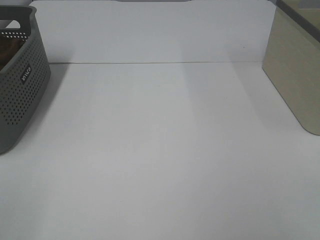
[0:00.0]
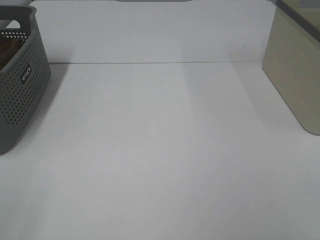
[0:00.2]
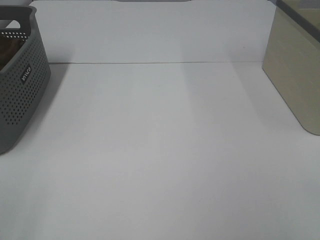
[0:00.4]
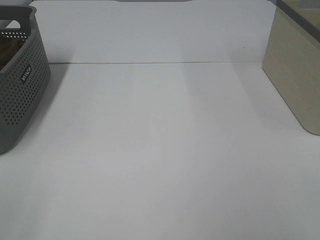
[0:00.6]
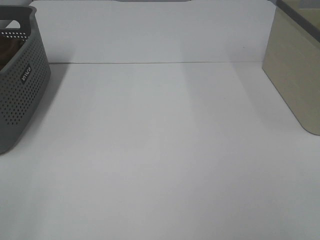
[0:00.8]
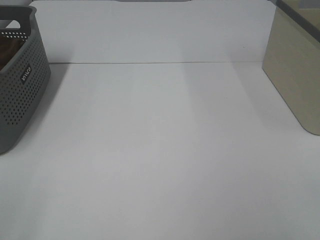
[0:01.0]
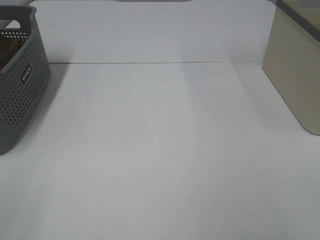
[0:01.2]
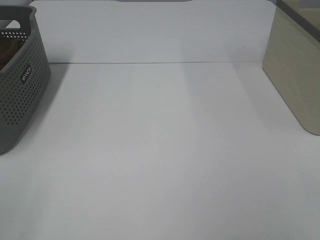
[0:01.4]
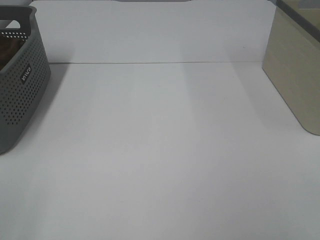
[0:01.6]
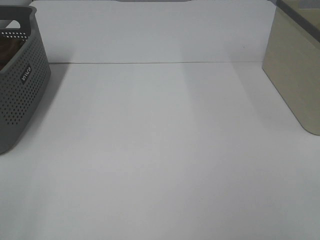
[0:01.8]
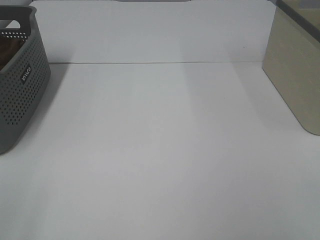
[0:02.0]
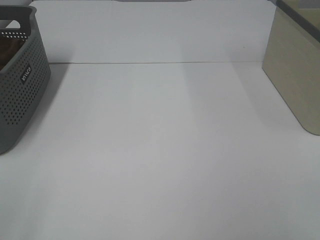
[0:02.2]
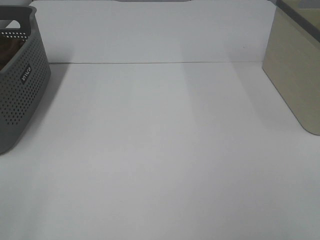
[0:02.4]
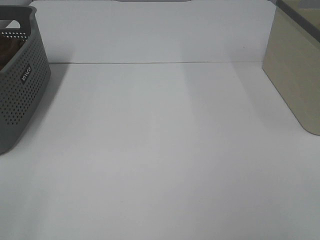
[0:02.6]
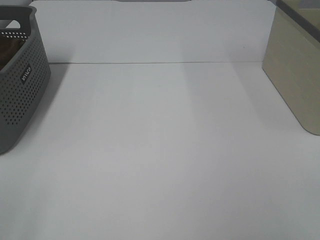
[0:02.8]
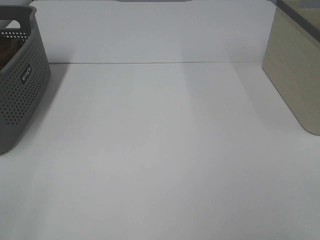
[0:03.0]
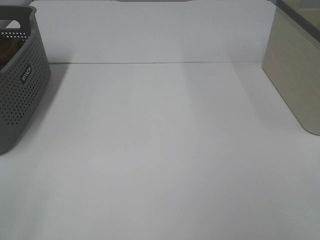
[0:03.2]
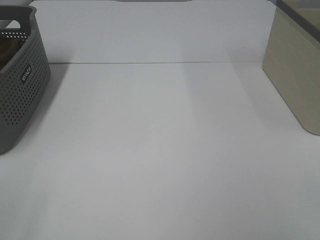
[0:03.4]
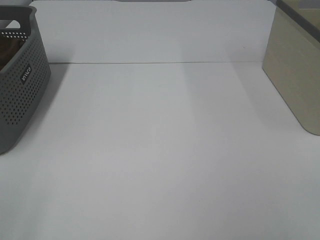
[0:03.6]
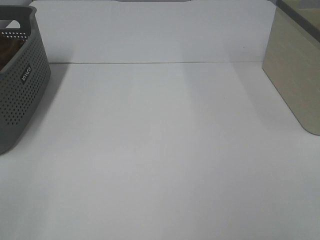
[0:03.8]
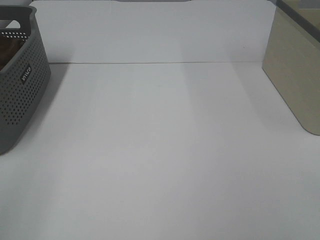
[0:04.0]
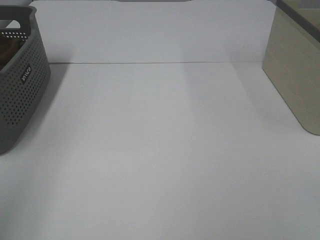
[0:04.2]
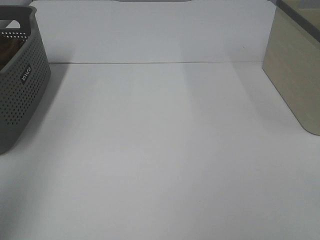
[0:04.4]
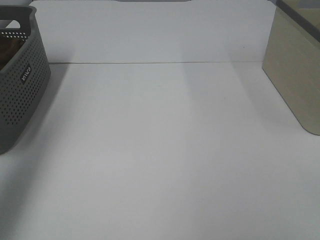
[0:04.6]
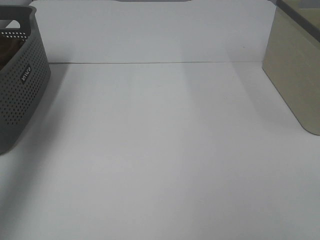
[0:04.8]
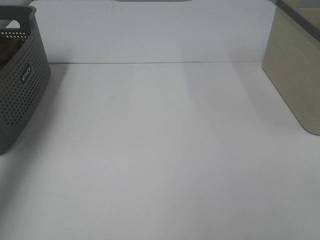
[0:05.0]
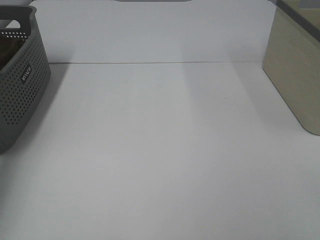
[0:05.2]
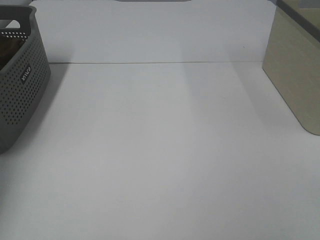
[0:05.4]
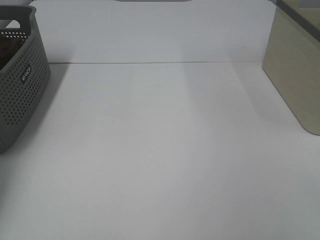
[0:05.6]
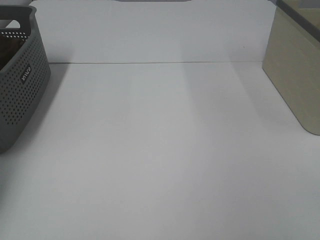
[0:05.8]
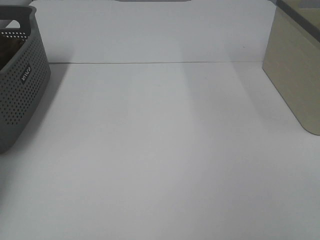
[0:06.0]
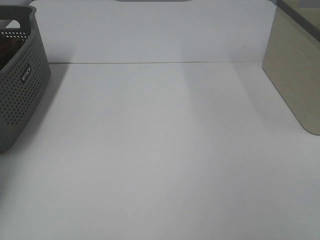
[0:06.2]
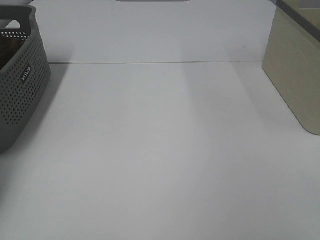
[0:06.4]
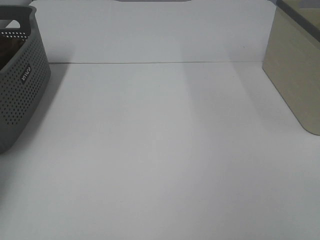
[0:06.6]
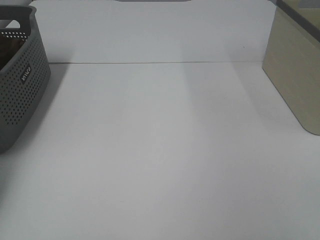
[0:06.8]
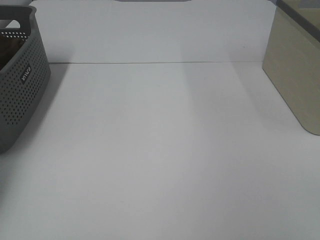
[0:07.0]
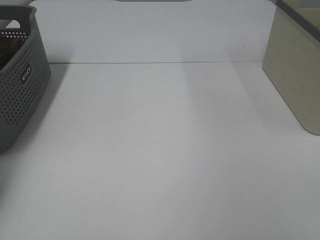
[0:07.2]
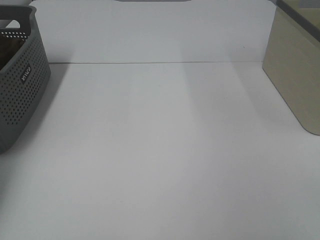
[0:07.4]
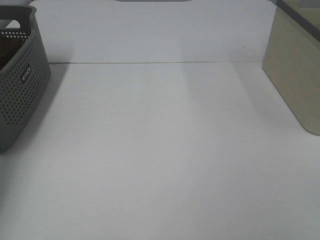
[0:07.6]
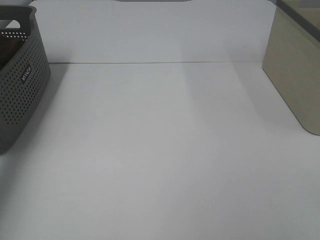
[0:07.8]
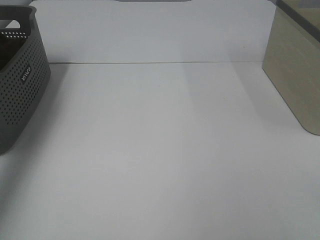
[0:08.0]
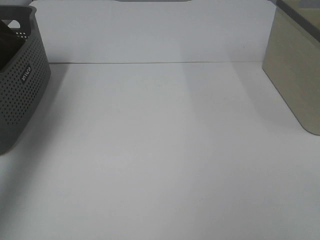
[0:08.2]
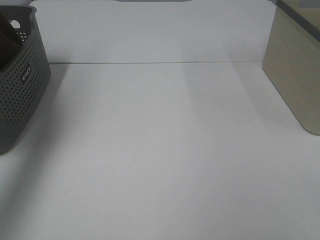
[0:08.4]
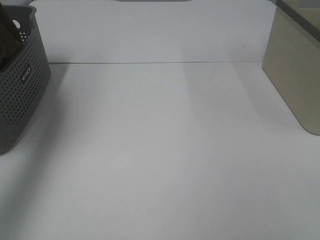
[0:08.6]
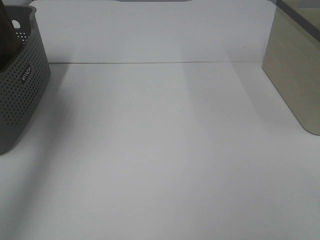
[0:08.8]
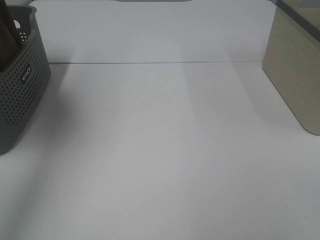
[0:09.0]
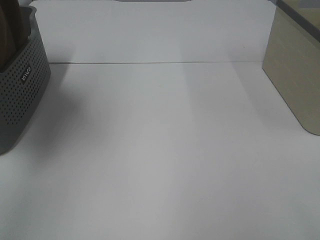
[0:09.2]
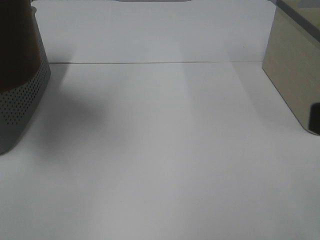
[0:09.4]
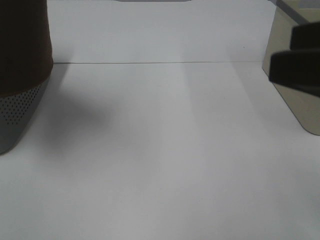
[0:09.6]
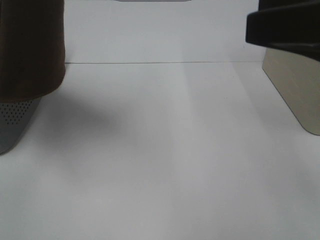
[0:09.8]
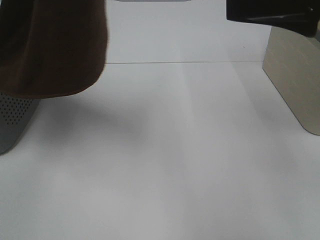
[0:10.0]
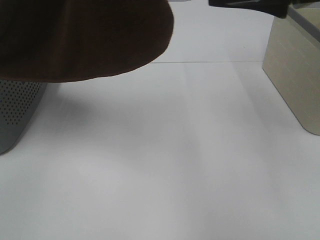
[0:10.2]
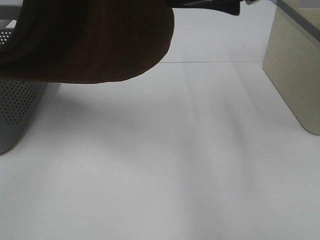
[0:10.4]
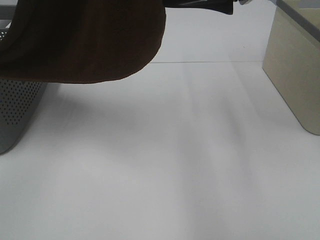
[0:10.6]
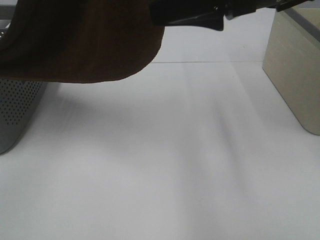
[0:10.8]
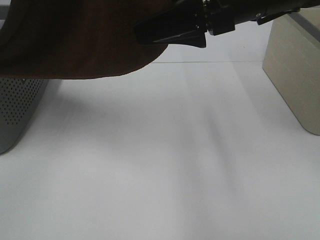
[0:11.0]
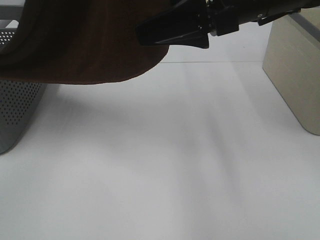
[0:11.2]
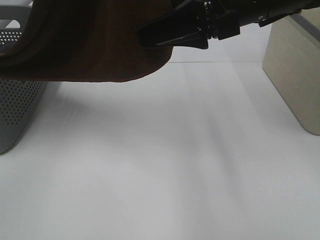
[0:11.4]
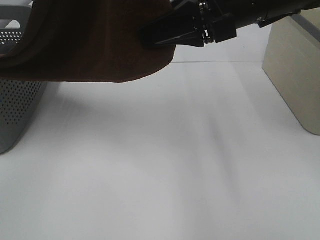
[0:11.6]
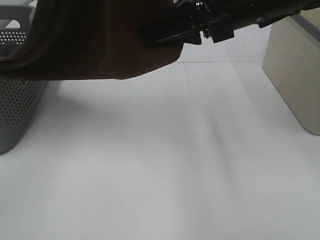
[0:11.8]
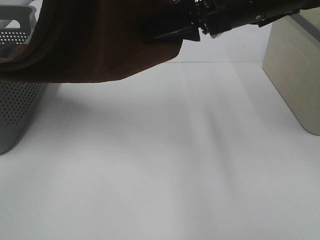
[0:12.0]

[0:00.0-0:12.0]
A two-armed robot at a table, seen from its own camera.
Task of the whole recording: Remove the towel and place it.
Step, 0:08.2 to 0:11.2: Right hand: grab a corner of the brown towel and straighten it.
0:00.0 to 0:03.0: Both grippers stay about where they are.
0:03.0 to 0:04.4: The left gripper is displaced forward and upward by about 20 cm.
0:04.4 to 0:06.0: The left gripper goes approximately 35 cm forward and downward.
0:07.6 to 0:09.0: The left gripper travels upward, backward and to the right by about 30 cm.
0:09.0 to 0:10.4: The right gripper shifts about 30 cm forward and to the left. The left gripper shifts some 15 cm to the right.
0:10.4 to 0:12.0: The right gripper ends up roughly 5 cm from where it was, and closes its fingers.

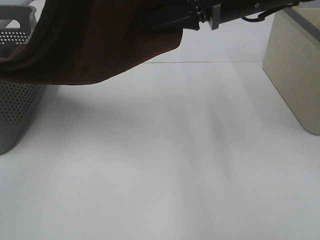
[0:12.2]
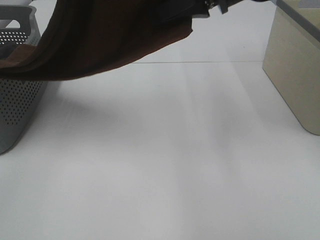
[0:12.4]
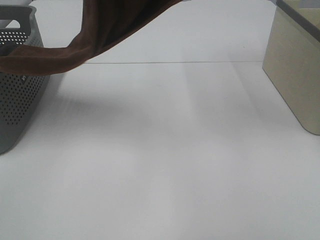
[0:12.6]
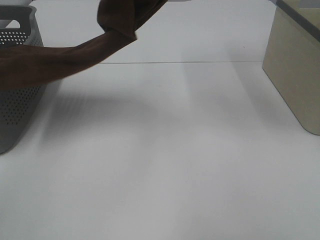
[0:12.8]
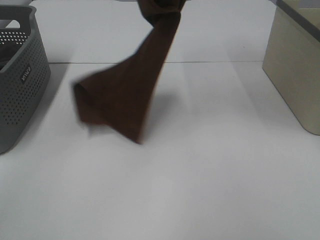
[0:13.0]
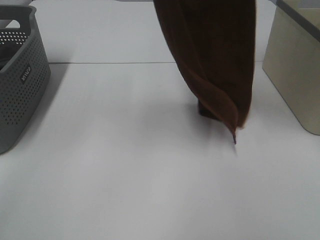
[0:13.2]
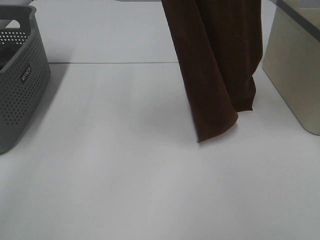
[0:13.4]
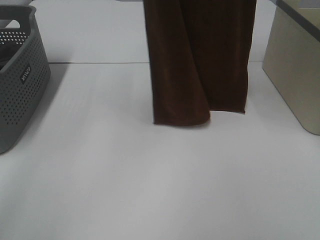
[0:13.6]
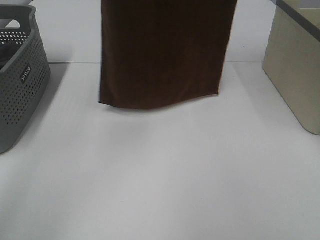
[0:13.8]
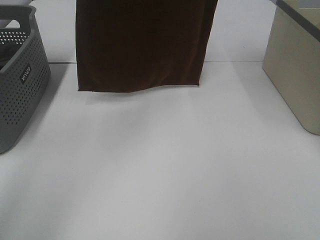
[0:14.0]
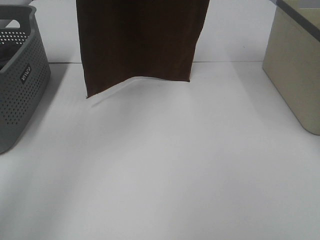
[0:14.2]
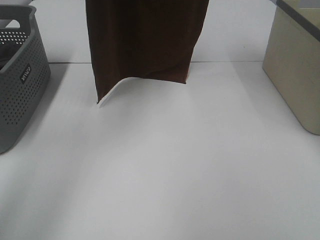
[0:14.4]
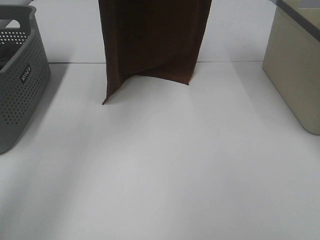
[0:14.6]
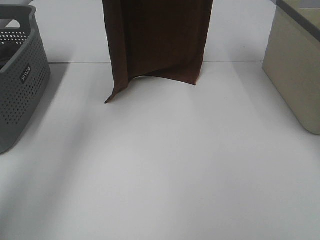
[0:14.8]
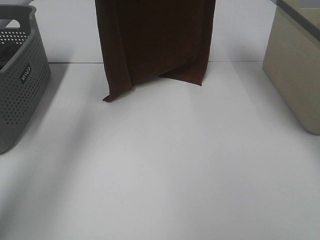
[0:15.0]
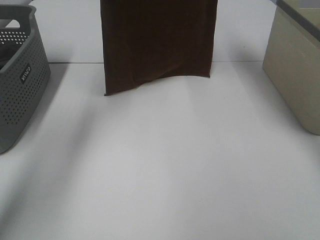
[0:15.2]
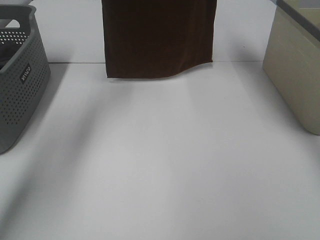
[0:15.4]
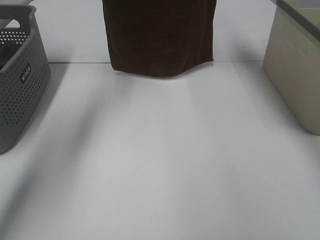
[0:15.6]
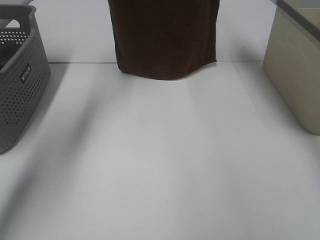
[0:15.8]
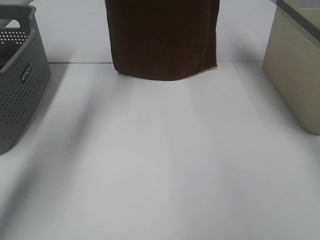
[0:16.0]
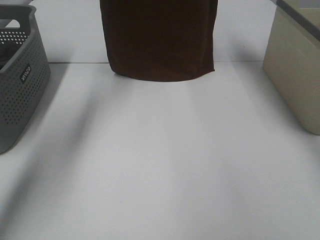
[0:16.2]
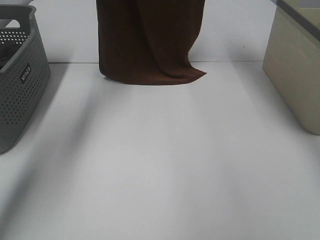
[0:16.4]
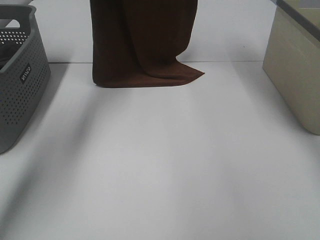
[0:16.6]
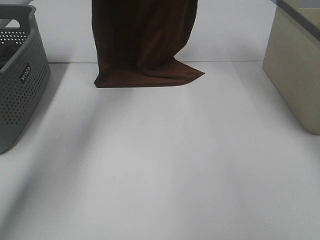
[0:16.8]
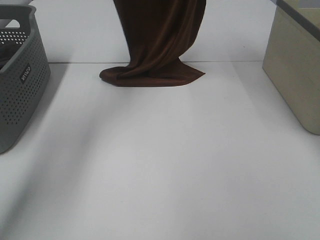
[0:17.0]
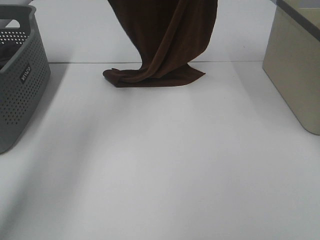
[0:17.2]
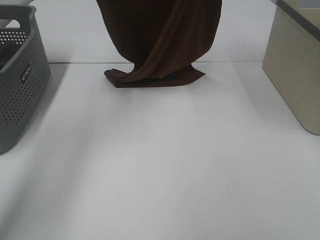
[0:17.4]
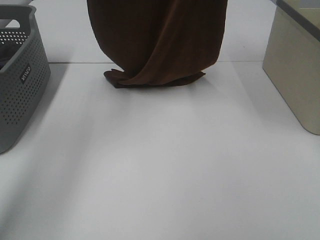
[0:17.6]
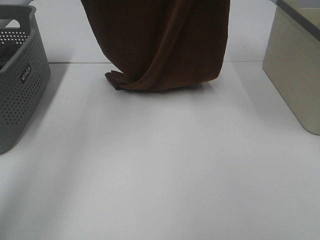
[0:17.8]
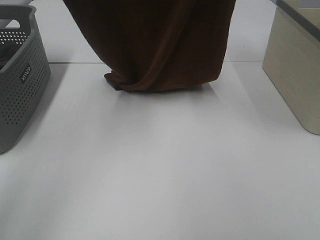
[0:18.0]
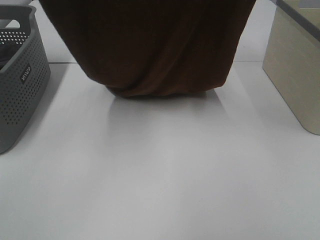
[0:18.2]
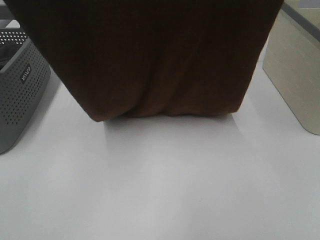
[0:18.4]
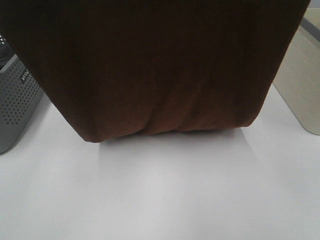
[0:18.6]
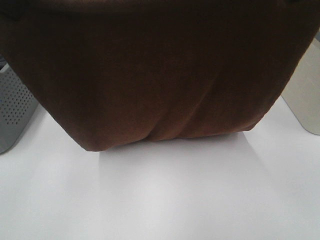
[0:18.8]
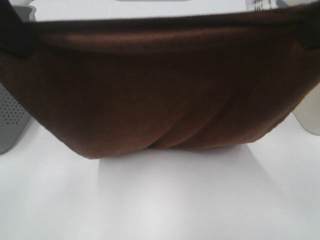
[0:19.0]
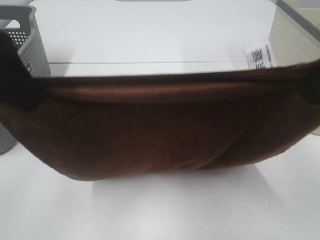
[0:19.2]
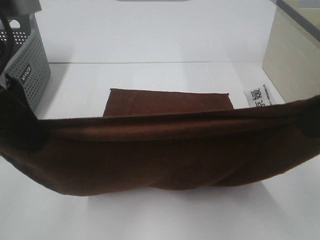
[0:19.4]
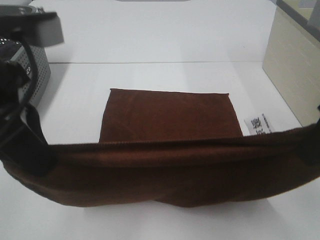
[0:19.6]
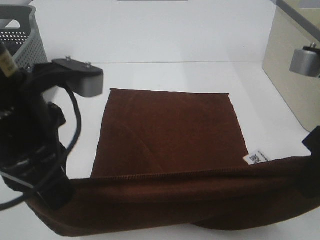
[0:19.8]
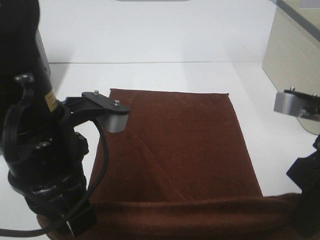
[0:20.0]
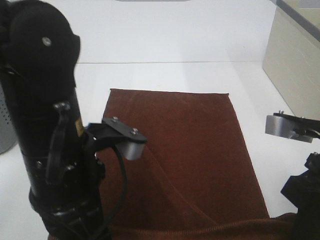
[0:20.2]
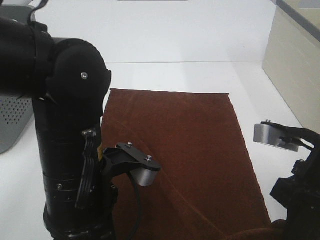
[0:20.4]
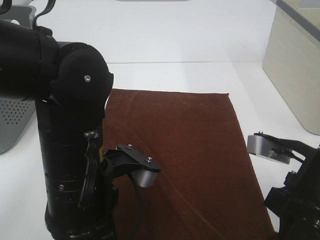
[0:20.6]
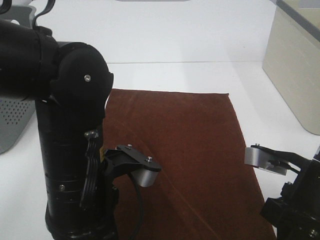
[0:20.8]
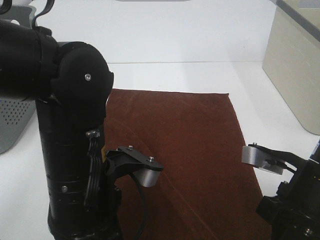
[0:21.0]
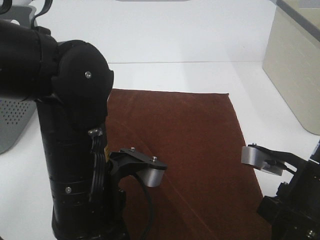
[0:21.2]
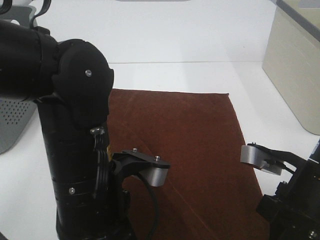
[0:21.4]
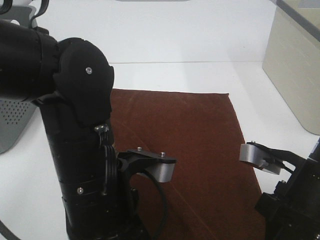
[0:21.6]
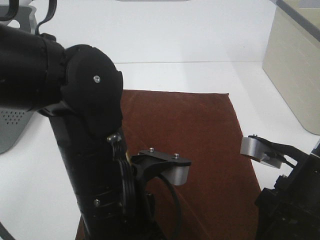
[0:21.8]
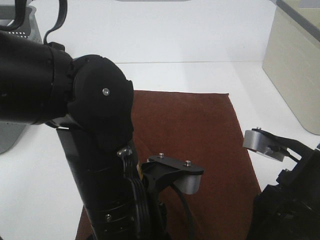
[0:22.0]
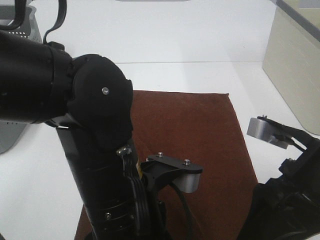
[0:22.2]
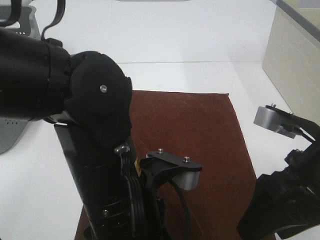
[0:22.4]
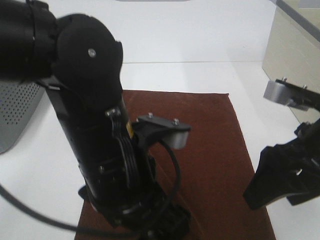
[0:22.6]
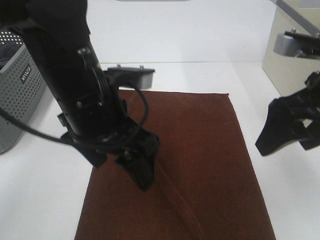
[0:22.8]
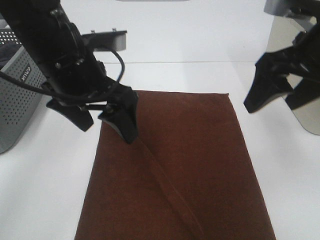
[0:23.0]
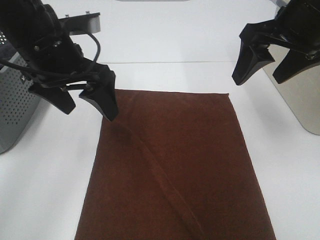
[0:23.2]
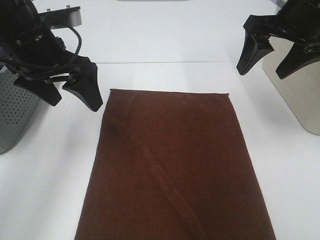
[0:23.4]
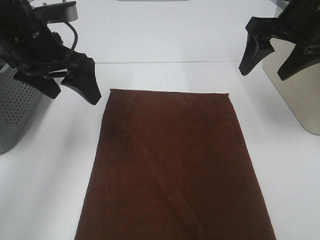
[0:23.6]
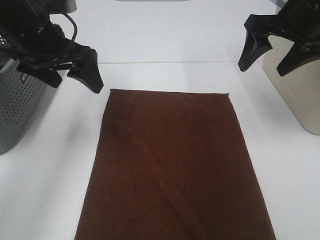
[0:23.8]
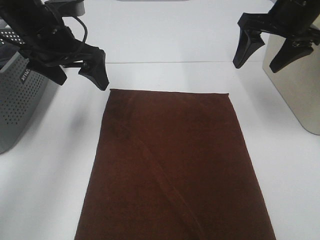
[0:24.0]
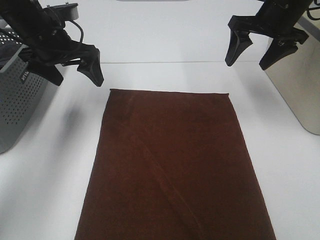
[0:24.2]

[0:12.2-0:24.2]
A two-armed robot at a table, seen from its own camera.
Task of the whole recording: Remove the towel and place it.
Step, 0:12.2 to 0:18.0: Left hand: spread the brown towel flat on the table.
Step, 0:12.2 to 0:18.0: Right hand: spread the brown towel flat on the table.
0:12.2 to 0:13.8: The left gripper travels forward by some 15 cm, while the right gripper travels upward and forward by roughly 25 cm.
0:13.8 to 0:15.2: Both grippers move forward and downward, roughly 10 cm.
0:15.2 to 0:16.6: The left gripper is displaced forward by approximately 5 cm. The right gripper heads downward, covering about 5 cm.
0:16.6 to 0:18.2: The two grippers go about 25 cm backward.
0:18.2 to 0:19.8: The two grippers go approximately 25 cm downward and backward.
0:19.8 to 0:21.2: The left gripper shifts about 10 cm downward and to the right; the right gripper moves downward, about 10 cm.
0:21.2 to 0:22.6: The left gripper opens its fingers. The right gripper is displaced upward by approximately 5 cm, and opens its fingers.
0:22.6 to 0:24.2: The right gripper goes roughly 25 cm forward, while the left gripper goes approximately 30 cm forward and to the left.
